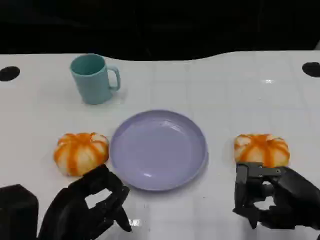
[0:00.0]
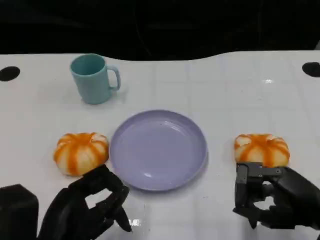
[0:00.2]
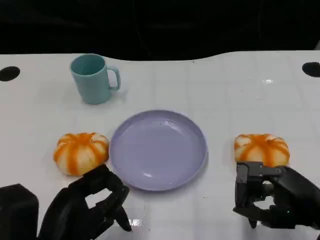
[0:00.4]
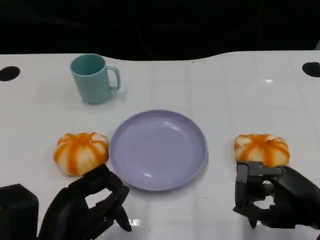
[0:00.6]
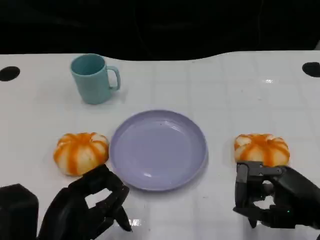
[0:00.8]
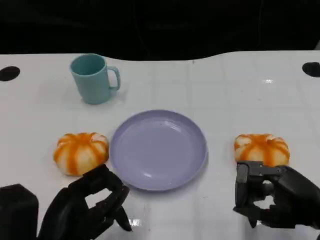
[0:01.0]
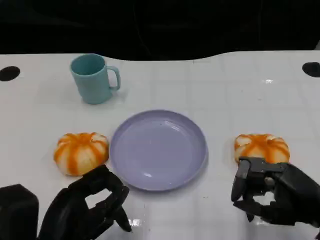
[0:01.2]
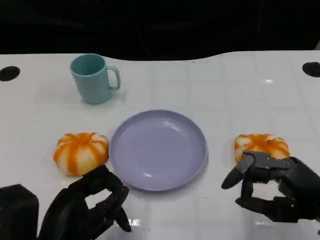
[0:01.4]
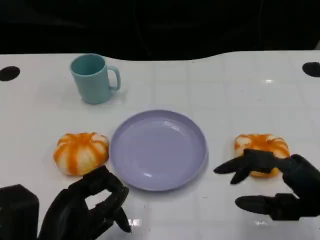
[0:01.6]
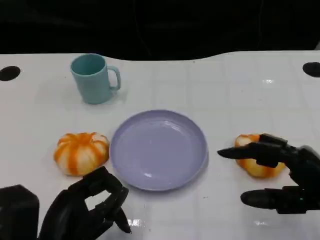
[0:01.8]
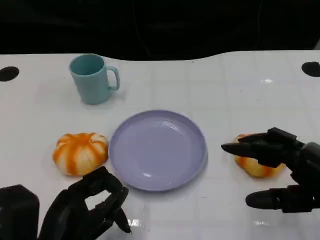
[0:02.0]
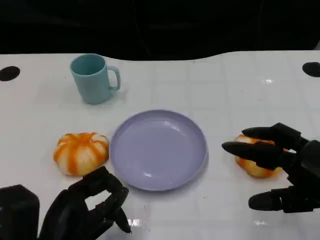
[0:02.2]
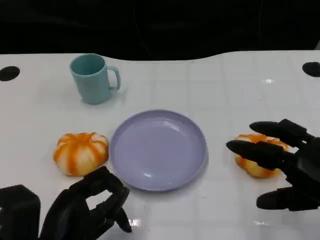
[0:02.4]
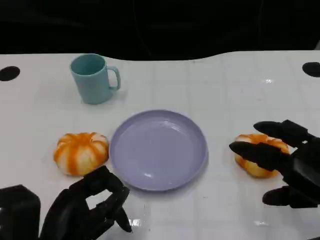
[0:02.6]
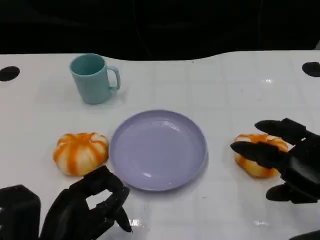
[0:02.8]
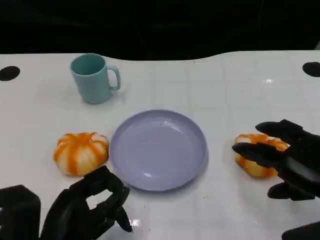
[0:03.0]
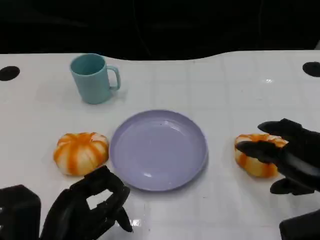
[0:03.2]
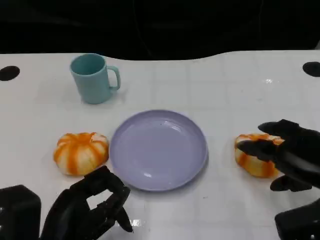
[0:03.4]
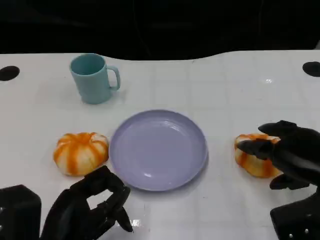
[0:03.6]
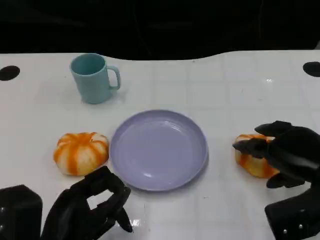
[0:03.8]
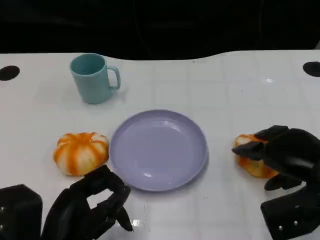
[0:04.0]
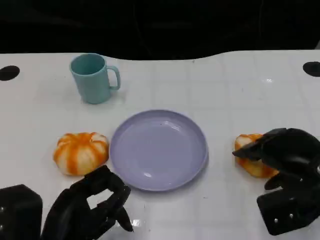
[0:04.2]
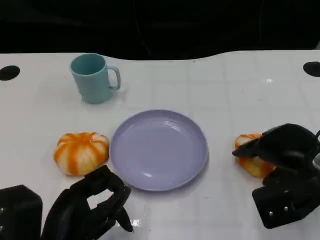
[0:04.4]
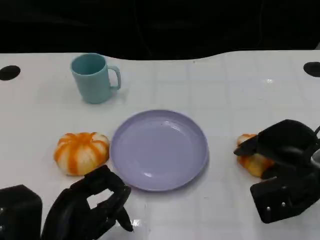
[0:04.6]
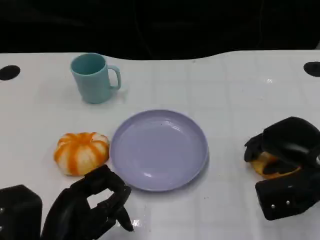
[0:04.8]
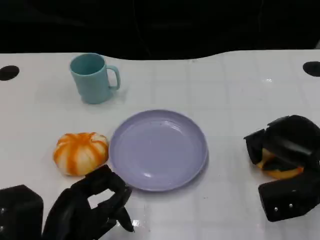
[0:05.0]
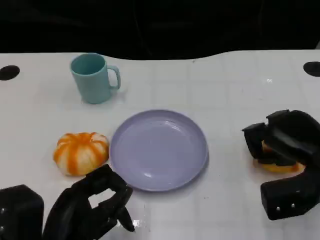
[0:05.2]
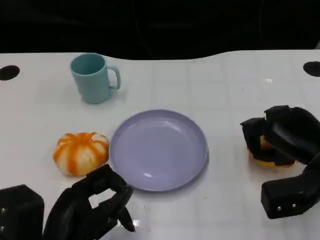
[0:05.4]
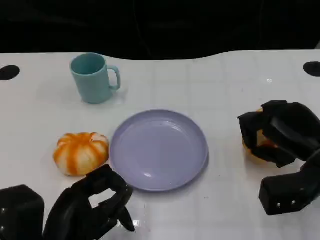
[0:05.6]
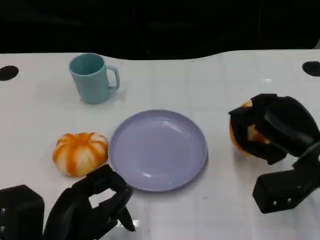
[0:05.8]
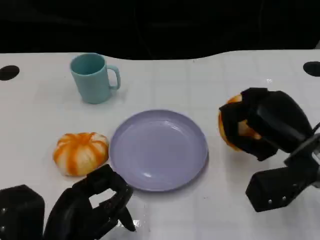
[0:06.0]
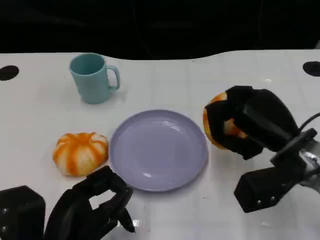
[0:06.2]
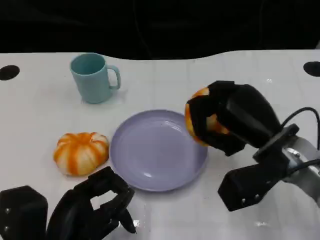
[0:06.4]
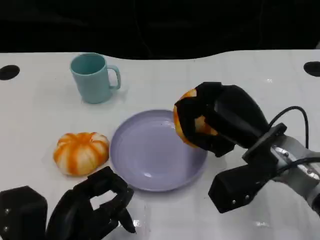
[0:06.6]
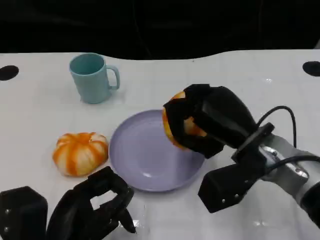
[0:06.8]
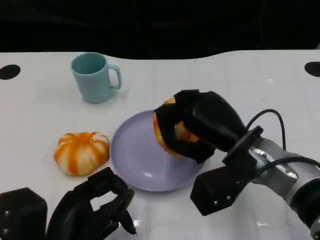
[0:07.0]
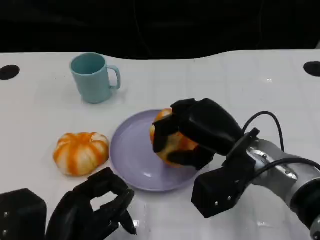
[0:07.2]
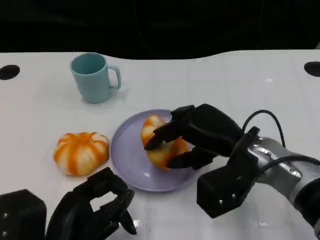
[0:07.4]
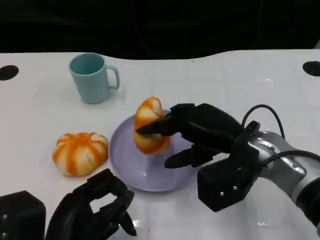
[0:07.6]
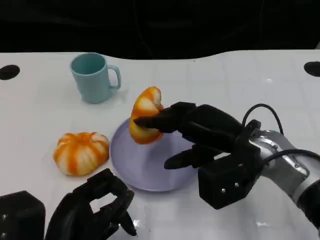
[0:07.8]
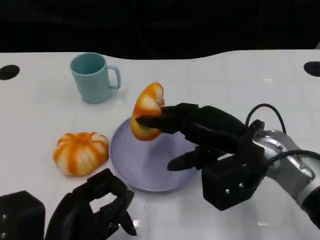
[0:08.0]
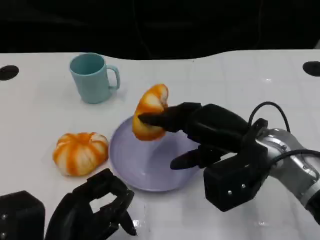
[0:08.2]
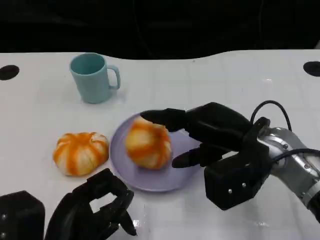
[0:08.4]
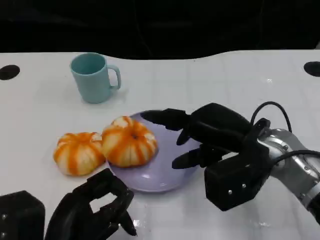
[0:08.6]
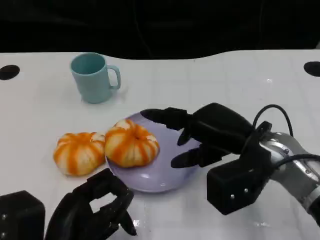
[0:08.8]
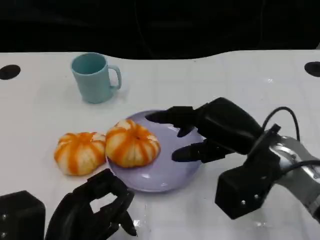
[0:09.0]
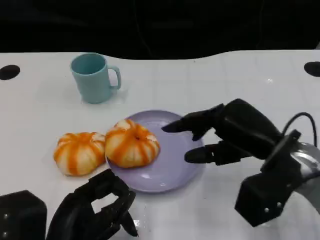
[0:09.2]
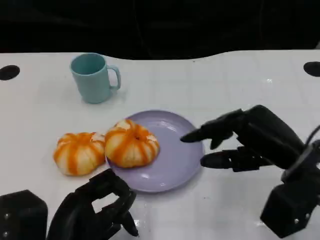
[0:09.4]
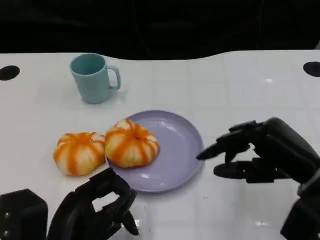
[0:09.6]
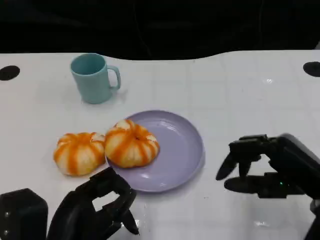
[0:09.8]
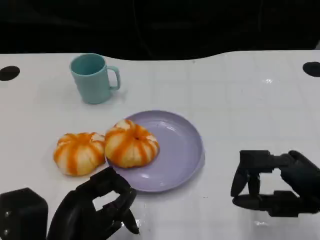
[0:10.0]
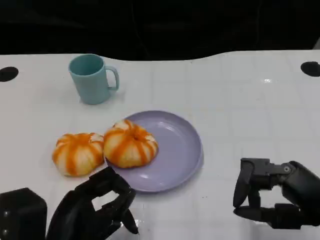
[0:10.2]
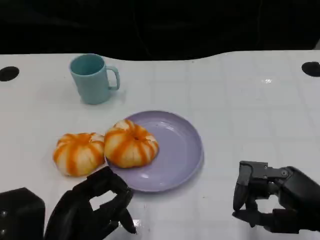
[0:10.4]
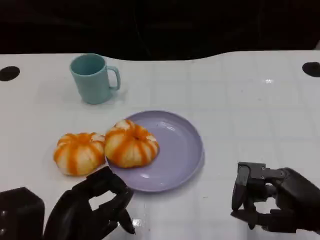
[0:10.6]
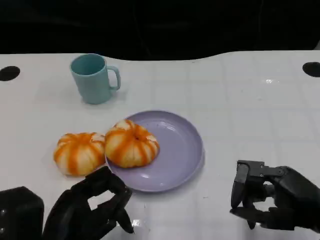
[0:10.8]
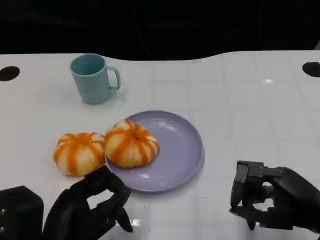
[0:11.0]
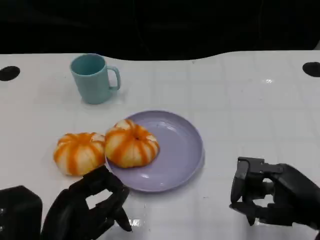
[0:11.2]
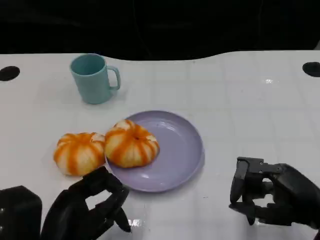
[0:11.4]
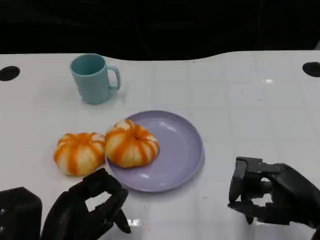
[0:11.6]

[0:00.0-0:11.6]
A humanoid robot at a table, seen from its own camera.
Task of the whole recording: Grasp the bread from the table and place it into the plate.
0:00.0 to 0:01.4: The hands stay close to where they were, moving slightly.
0:02.8 to 0:04.4: The right hand moves forward, roughly 5 cm.
0:05.8 to 0:07.2: The right hand is displaced to the left by some 10 cm.
0:07.2 to 0:08.8: The hands make only small movements.
0:08.8 to 0:10.2: The right hand shifts roughly 15 cm to the right and backward.
0:10.2 to 0:11.6: The hands stay close to where they were, moving slightly.

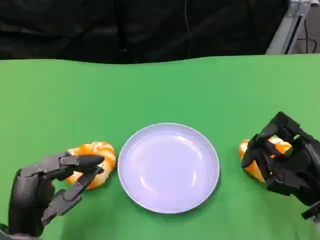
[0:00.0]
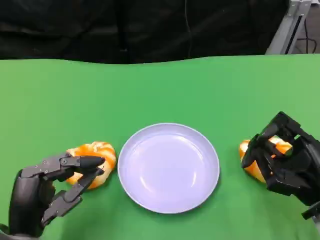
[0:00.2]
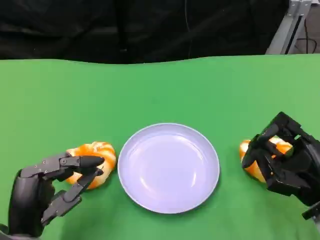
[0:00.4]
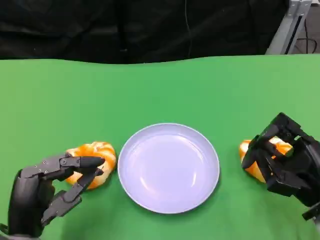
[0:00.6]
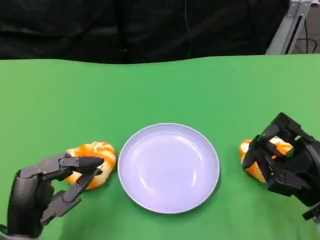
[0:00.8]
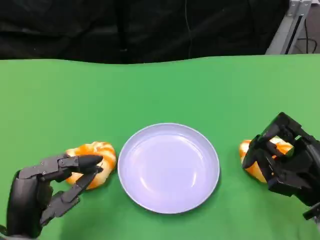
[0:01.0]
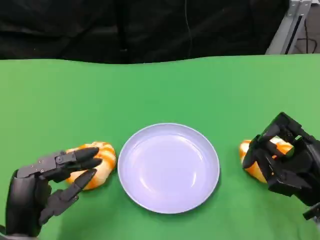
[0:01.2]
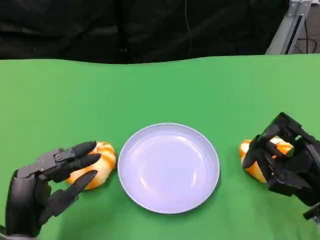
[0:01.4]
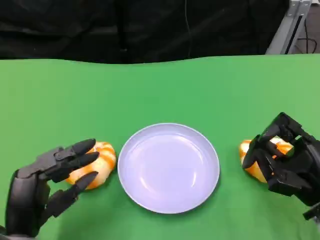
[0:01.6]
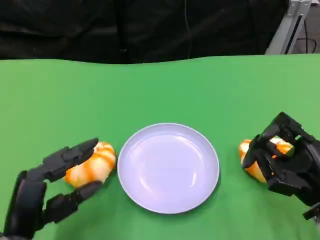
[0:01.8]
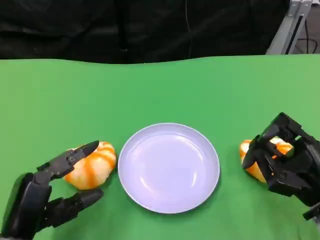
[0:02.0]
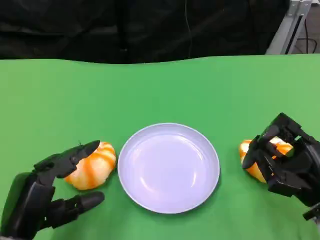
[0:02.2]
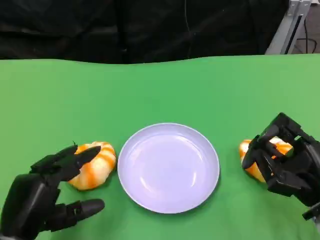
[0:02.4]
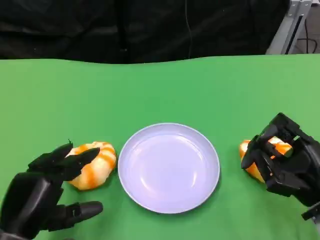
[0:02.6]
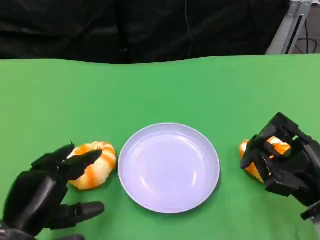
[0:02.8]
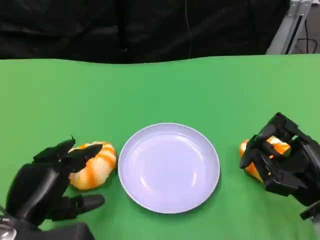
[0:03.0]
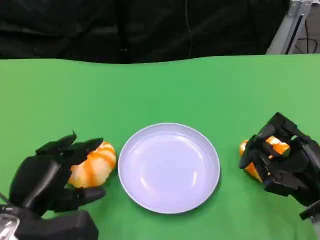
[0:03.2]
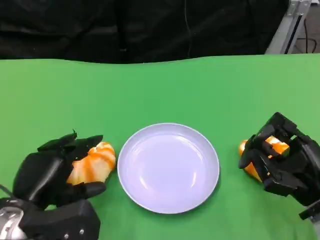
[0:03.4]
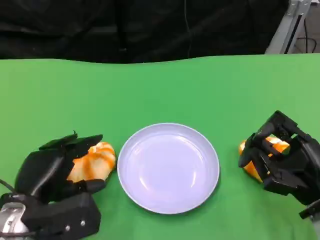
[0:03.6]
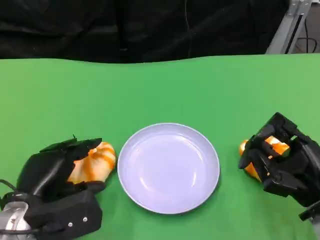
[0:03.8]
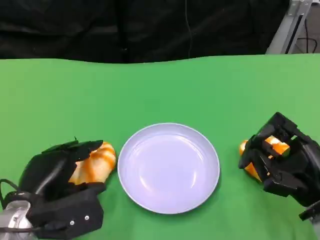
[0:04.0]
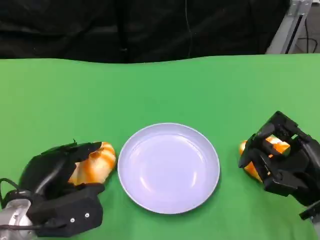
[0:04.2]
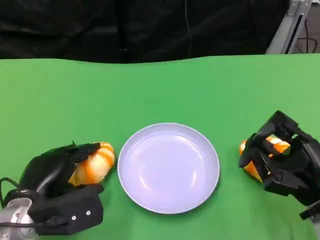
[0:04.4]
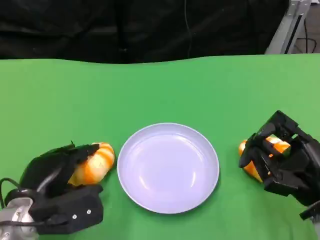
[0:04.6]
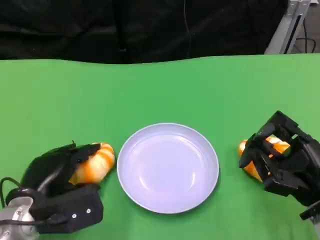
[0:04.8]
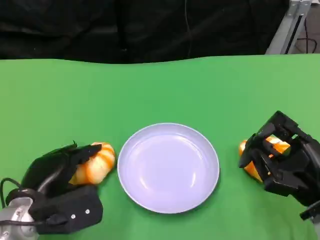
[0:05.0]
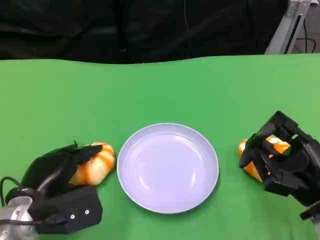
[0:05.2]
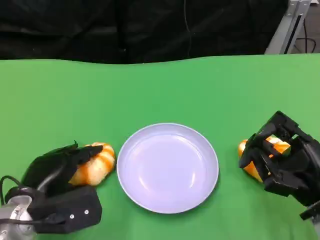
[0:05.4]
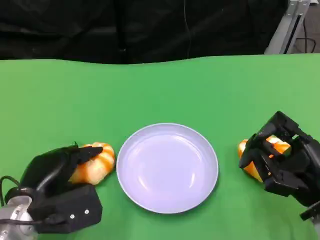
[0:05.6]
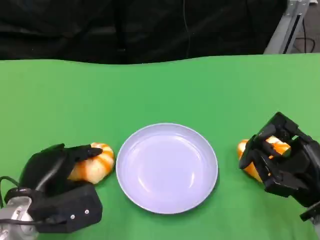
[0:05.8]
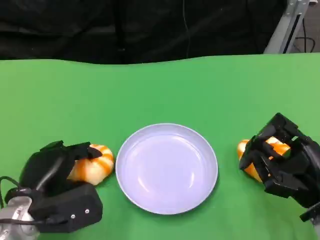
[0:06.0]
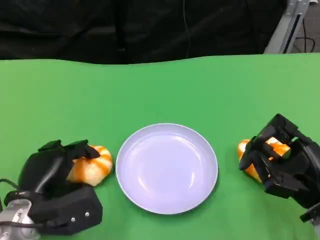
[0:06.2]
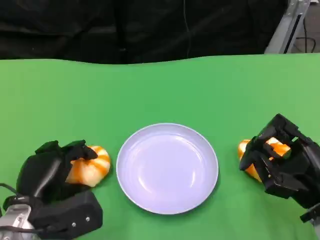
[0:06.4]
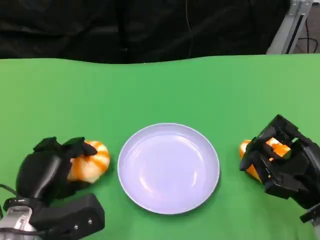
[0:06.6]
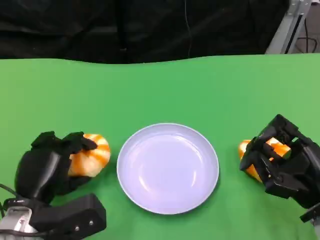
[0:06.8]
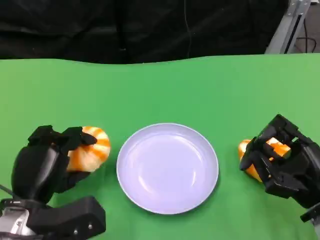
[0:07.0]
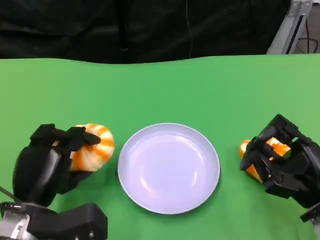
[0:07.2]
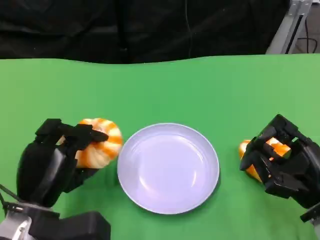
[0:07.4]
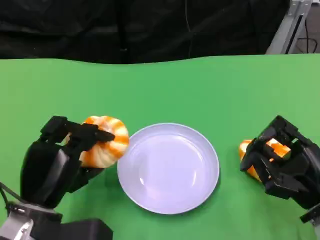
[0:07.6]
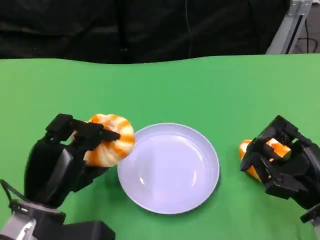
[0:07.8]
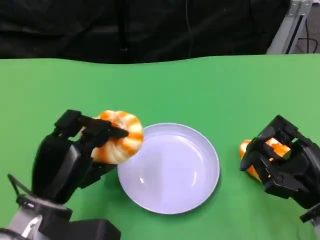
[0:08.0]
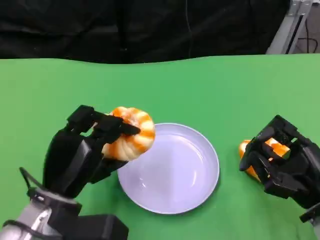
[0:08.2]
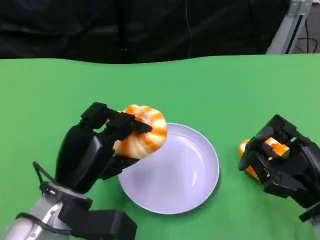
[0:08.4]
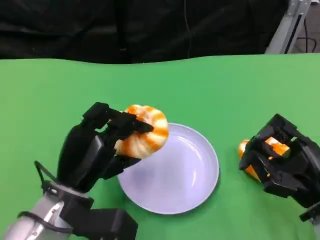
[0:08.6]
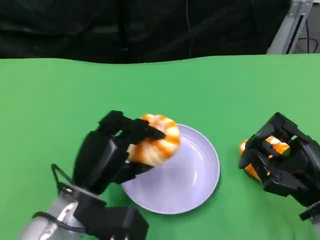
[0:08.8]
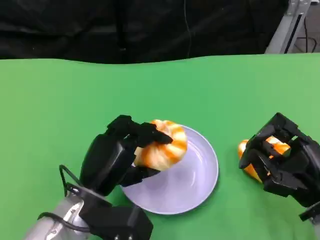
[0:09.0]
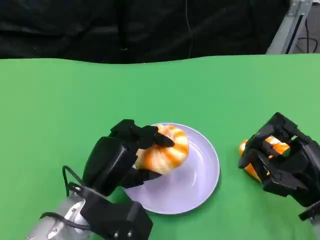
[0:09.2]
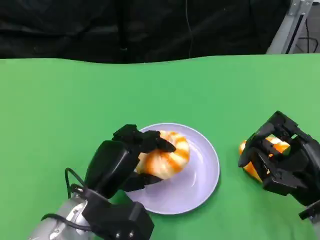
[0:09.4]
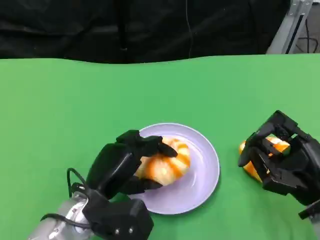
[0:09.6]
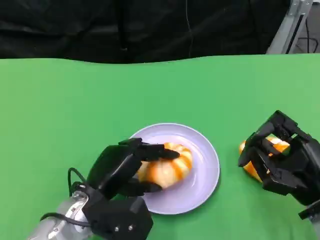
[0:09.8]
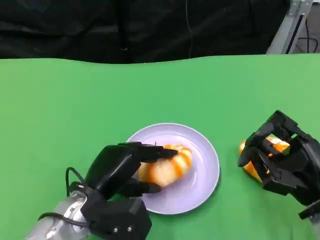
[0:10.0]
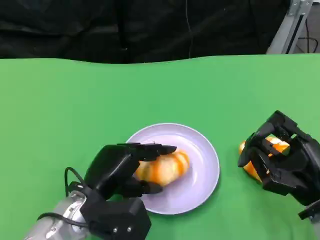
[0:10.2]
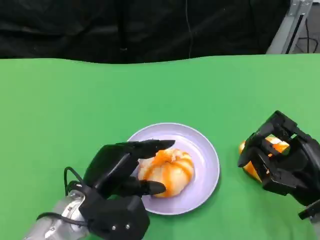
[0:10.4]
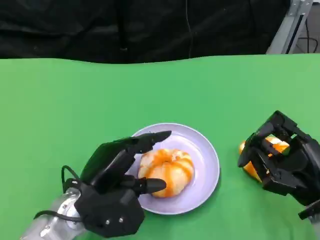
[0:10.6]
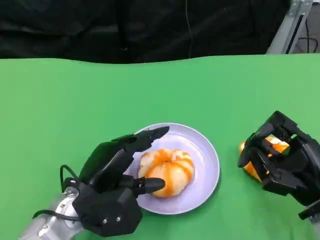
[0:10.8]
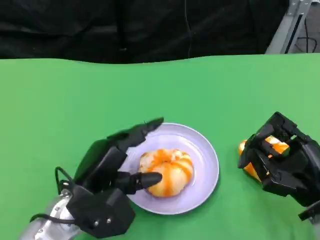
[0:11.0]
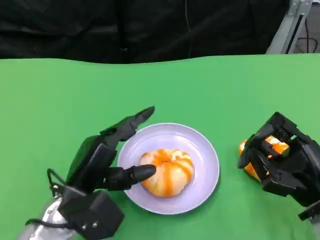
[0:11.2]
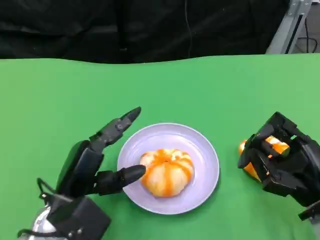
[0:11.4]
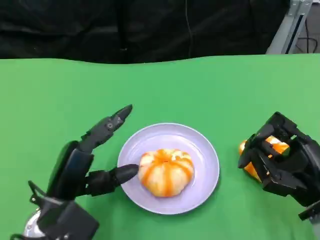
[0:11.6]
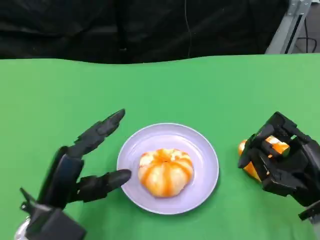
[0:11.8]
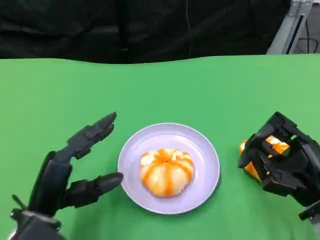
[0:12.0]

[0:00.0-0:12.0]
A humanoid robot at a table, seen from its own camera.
Task of the whole recording: Grasp the bread from the table and place it into the plate.
0:00.0 to 0:01.6: There are only small adjustments of the hands.
0:03.0 to 0:04.4: The left hand shifts by approximately 5 cm.
0:04.4 to 0:06.0: Both hands stay put.
0:07.6 to 0:09.0: The left hand goes roughly 5 cm to the right.
0:09.0 to 0:10.4: The hands make only small movements.
0:10.4 to 0:12.0: The left hand goes roughly 5 cm to the left.
